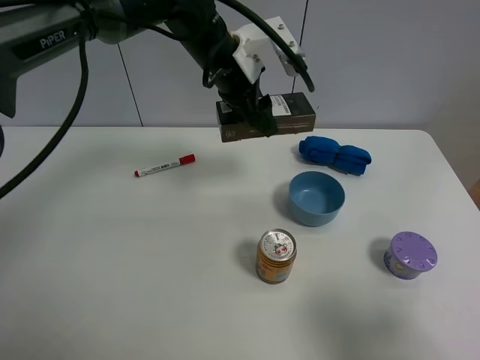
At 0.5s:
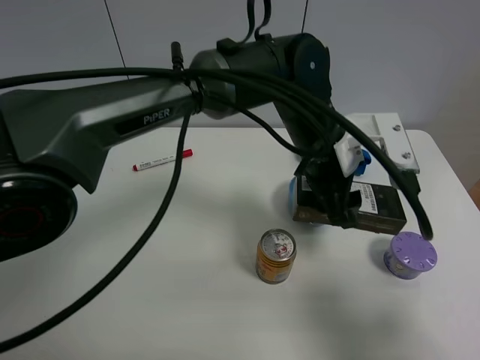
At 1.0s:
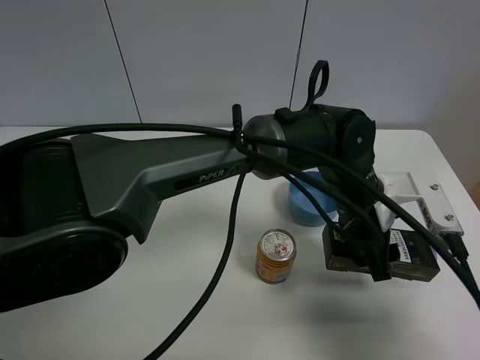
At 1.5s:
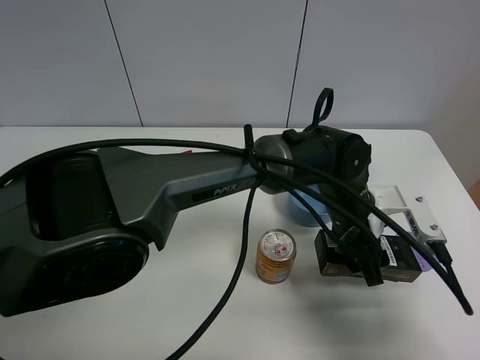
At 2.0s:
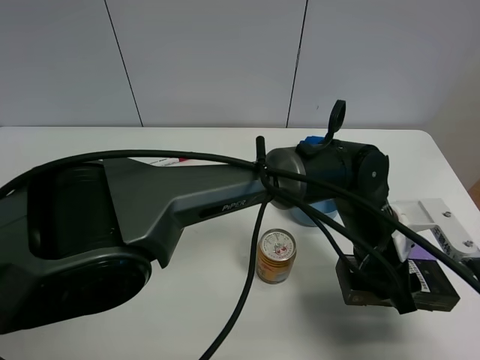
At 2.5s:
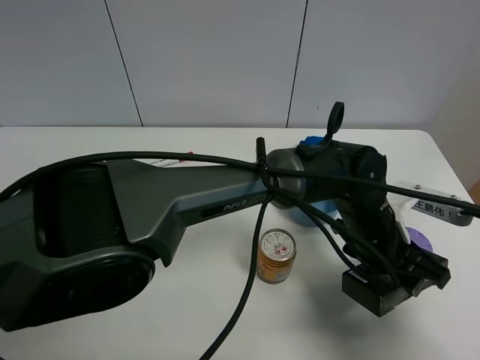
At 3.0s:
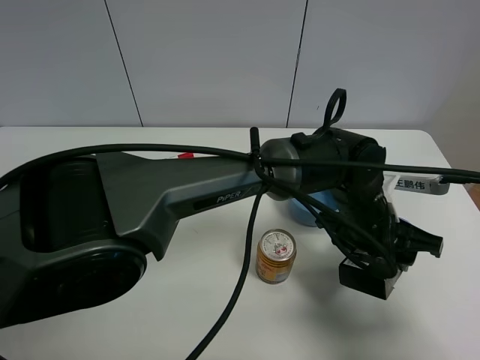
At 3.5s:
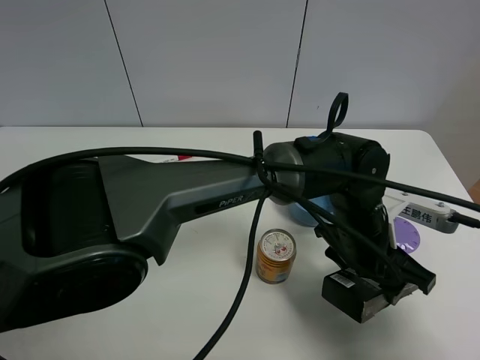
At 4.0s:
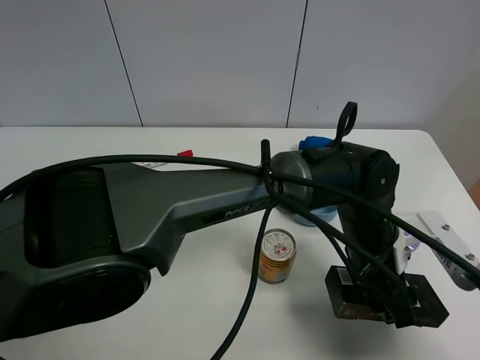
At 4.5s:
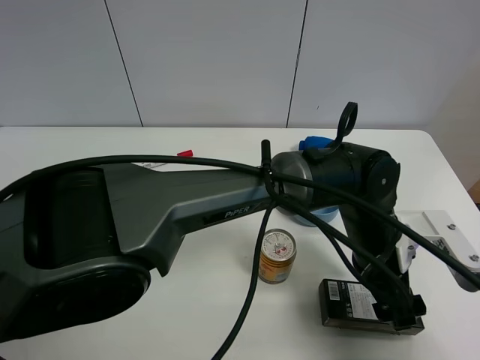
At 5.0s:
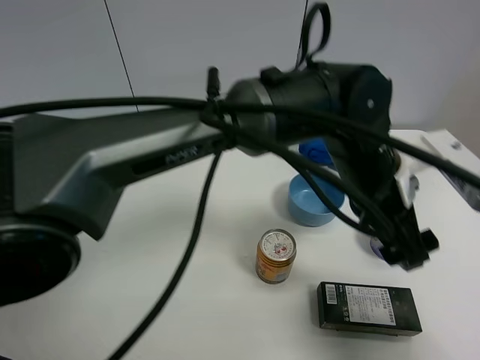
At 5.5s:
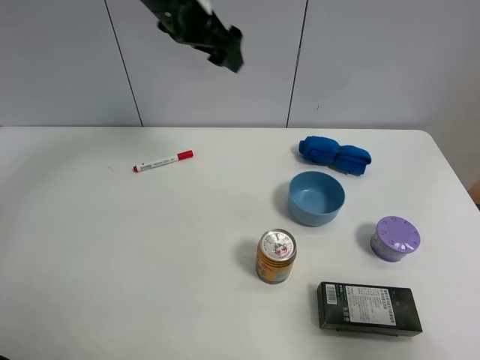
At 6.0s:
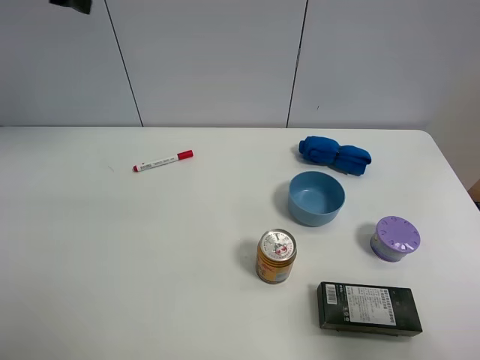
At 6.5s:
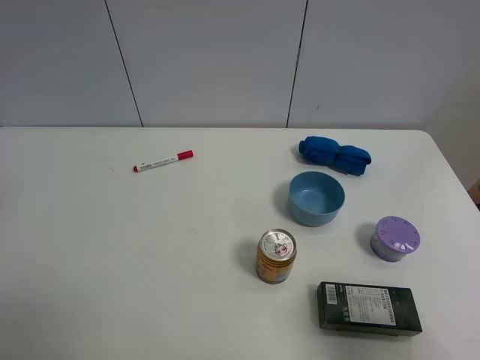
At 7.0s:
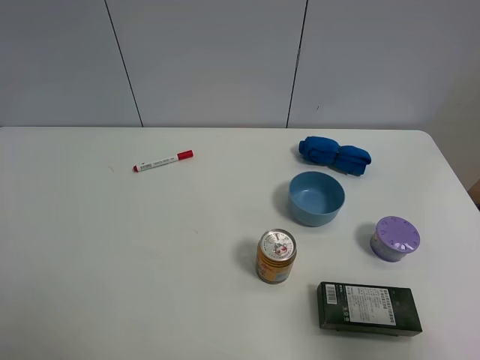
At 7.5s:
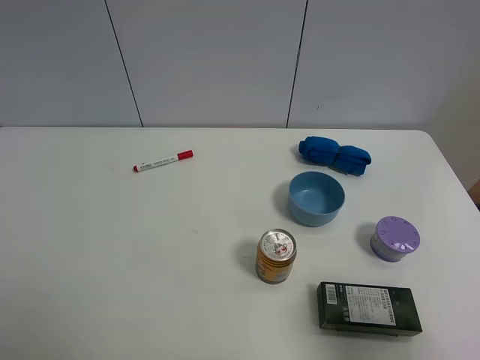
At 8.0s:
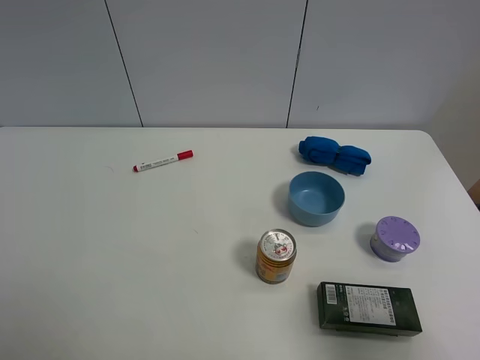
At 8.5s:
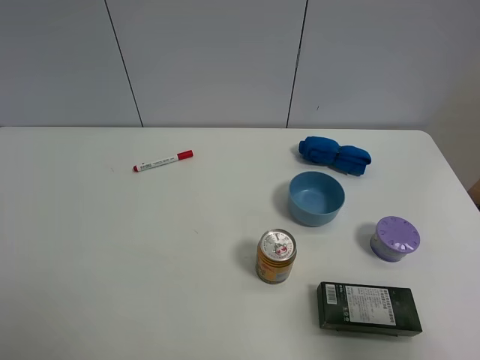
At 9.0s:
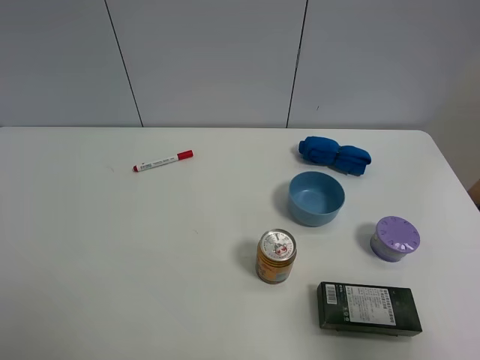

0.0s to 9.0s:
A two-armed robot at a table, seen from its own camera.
Task of the whole recording: the gripper move the object.
Step, 0.0s to 4.5s: Place the brown box on the table with the left gripper.
0.0s to 2.0s: The left gripper travels to the right, backward and downward by some 30 cm.
2.0s to 4.5s: The left gripper opens its fingers.
4.5s to 7.0s: The left gripper shifts about 50 cm to the left.

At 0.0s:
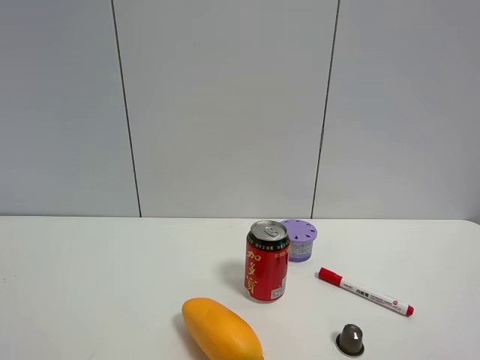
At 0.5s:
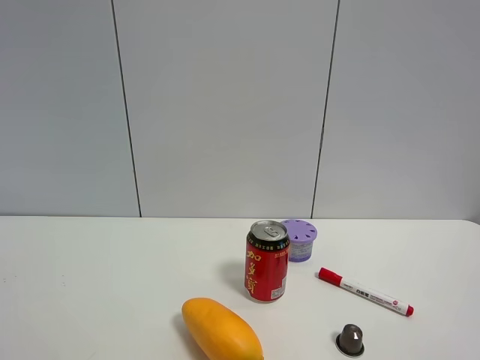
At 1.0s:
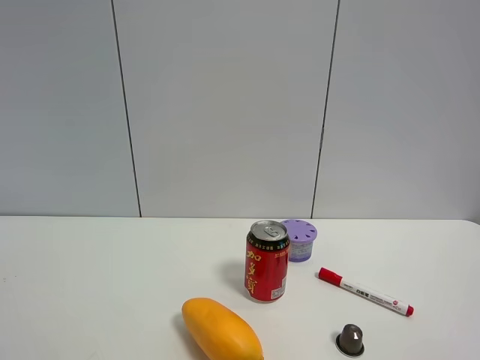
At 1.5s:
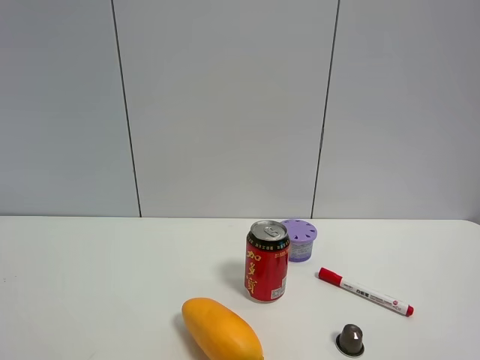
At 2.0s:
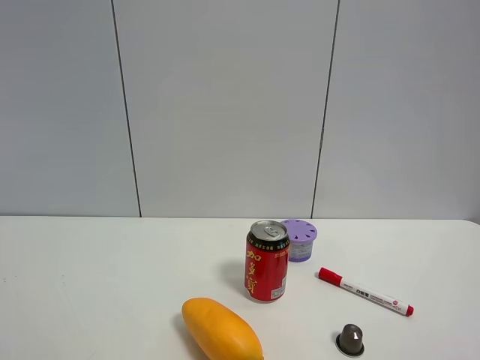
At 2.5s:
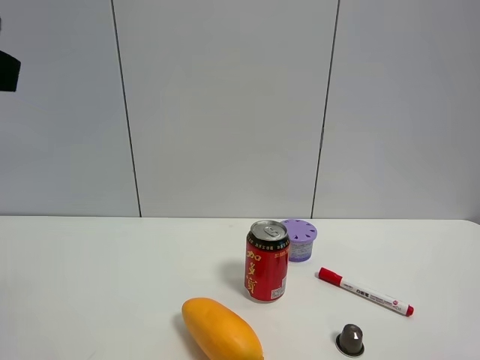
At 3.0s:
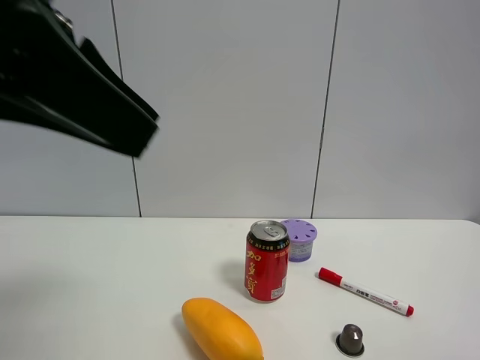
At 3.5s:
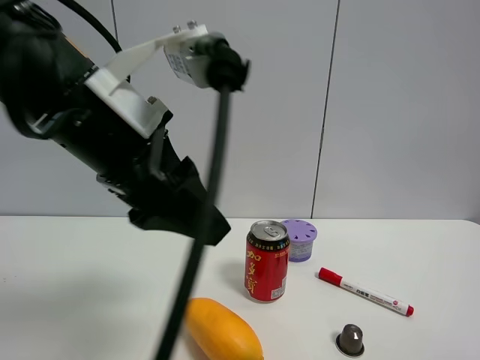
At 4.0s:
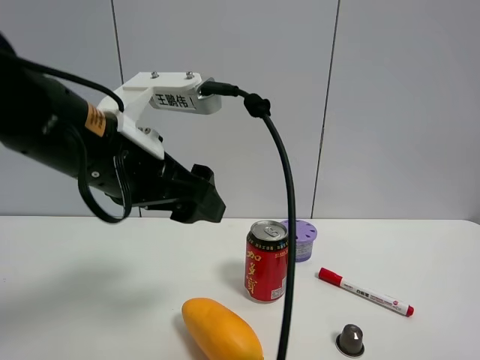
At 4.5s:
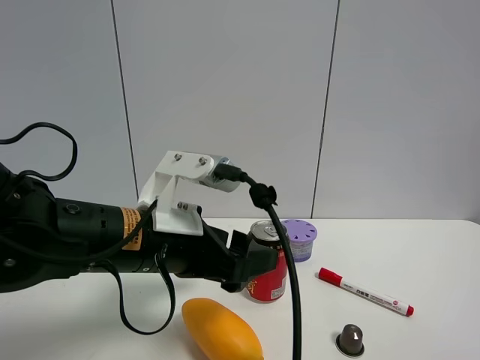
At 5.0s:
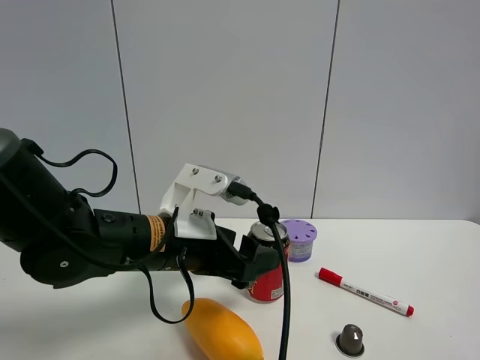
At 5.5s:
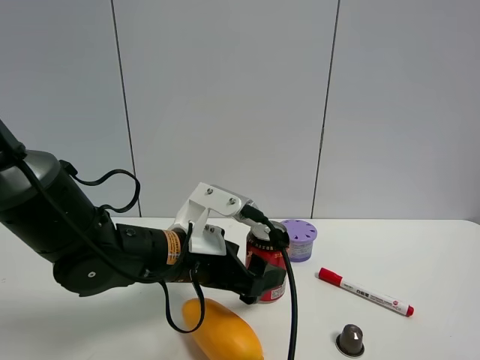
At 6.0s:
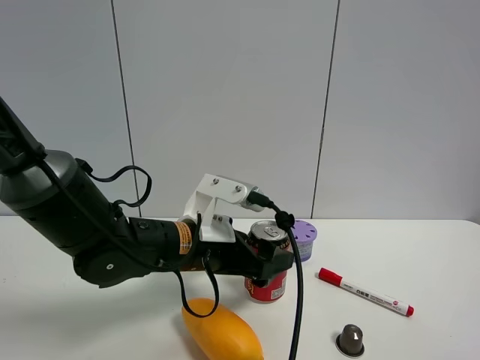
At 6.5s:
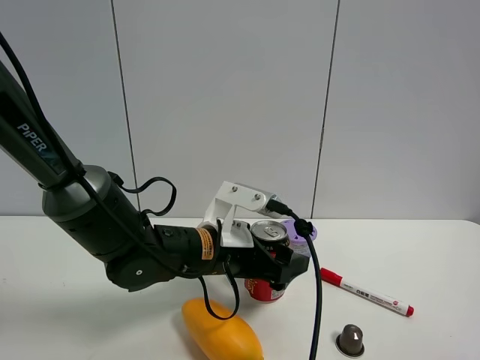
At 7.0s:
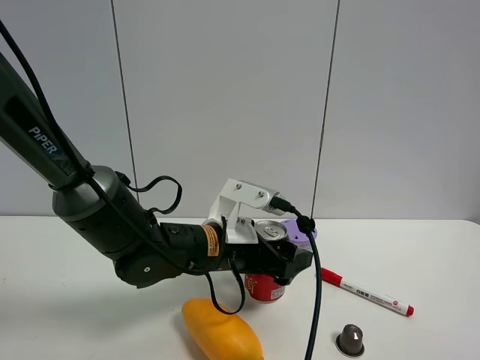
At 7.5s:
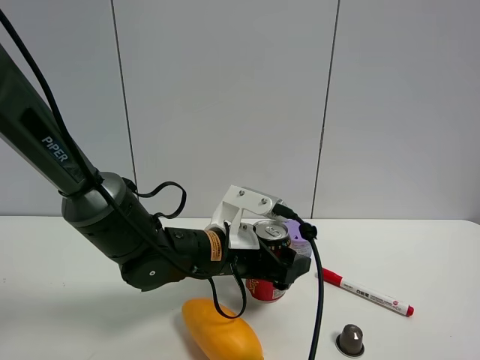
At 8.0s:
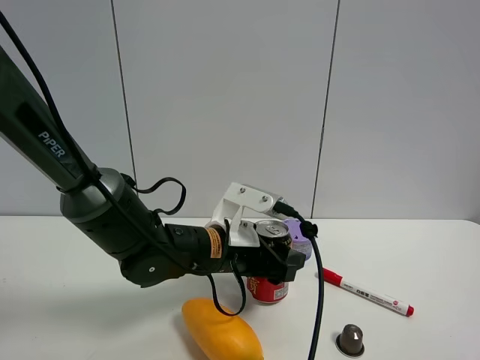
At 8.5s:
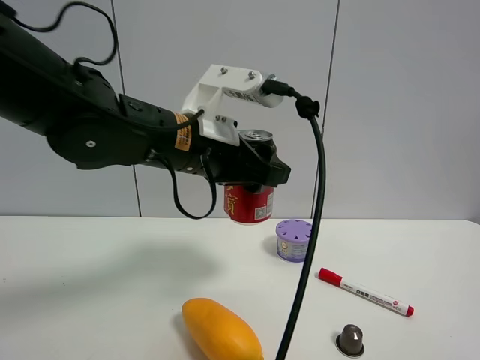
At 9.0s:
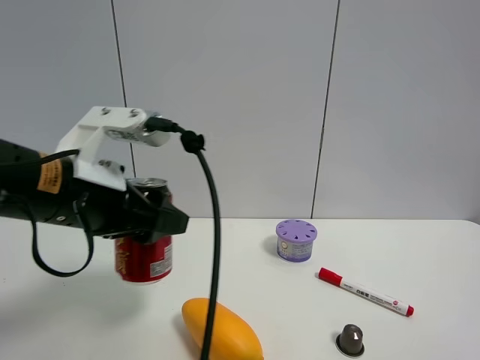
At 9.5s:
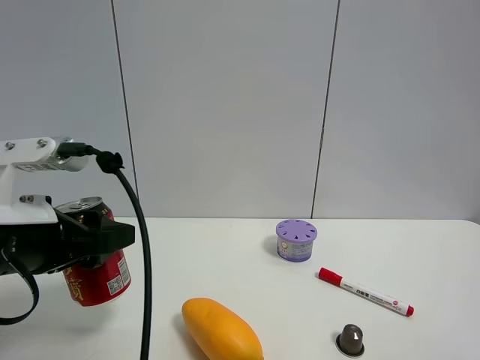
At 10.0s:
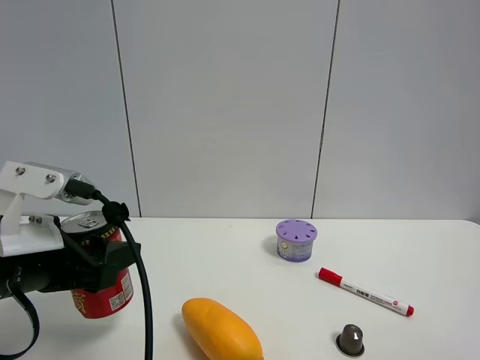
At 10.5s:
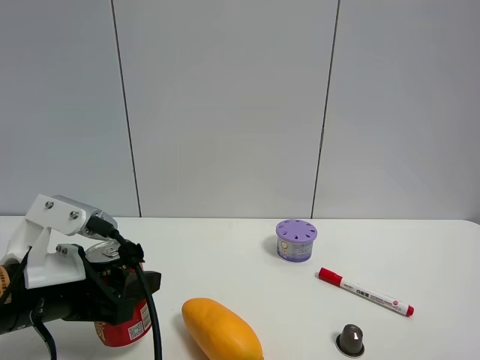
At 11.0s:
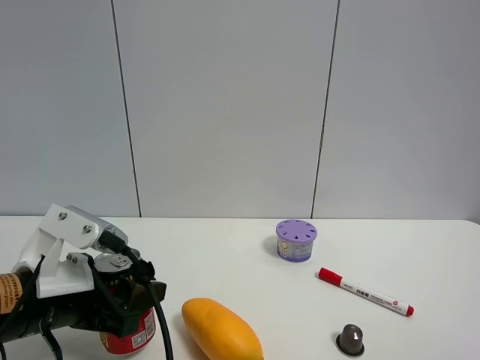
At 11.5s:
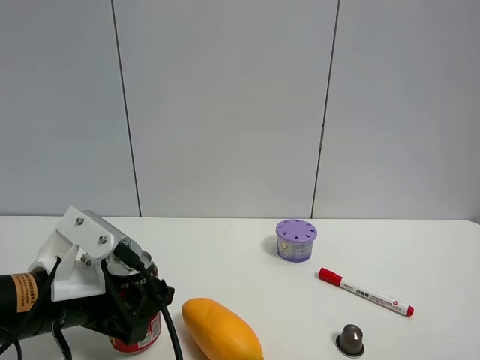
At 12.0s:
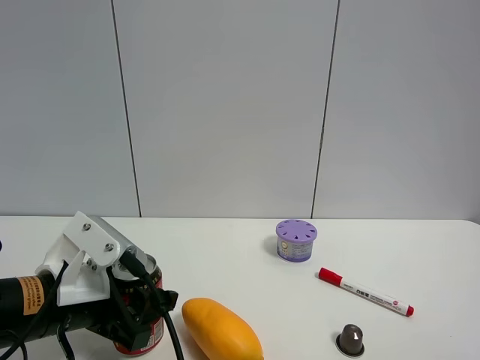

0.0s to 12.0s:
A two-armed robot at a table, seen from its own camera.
Task of the whole recording: the gripper move the object.
2.0s to 4.0s: The left gripper heads forward, to the right and downward, covering approximately 25 cm.
4.0s to 6.0s: The left gripper travels downward and forward by approximately 15 cm.
6.0s to 8.0s: The left gripper closes.
8.0s to 10.0s: The left gripper is displaced to the left and backward by roughly 20 cm.
10.0s to 12.0s: The left gripper heads downward, covering about 5 cm.

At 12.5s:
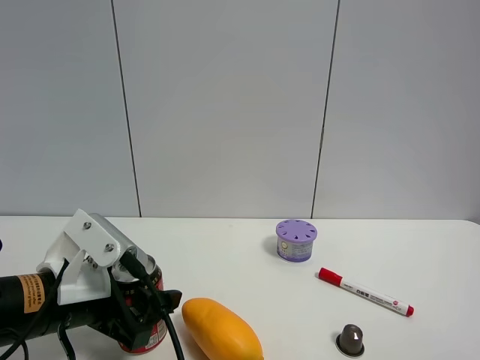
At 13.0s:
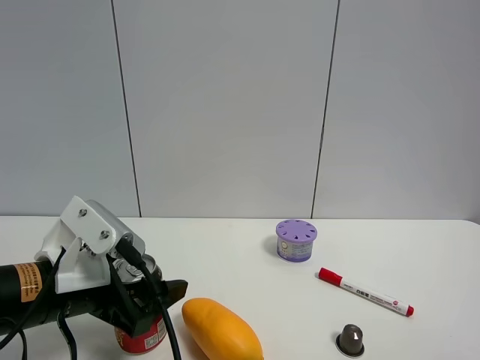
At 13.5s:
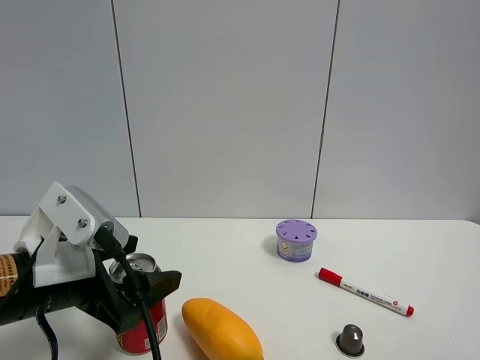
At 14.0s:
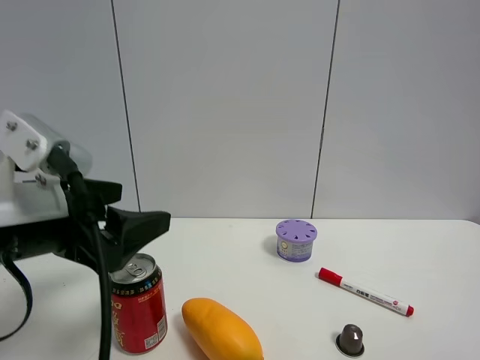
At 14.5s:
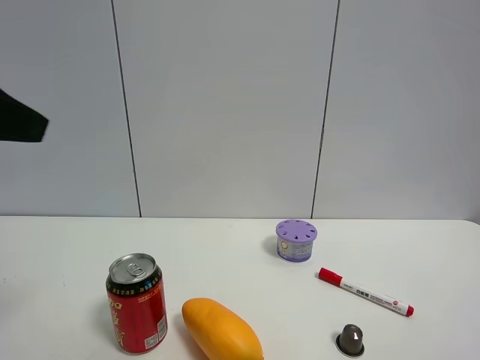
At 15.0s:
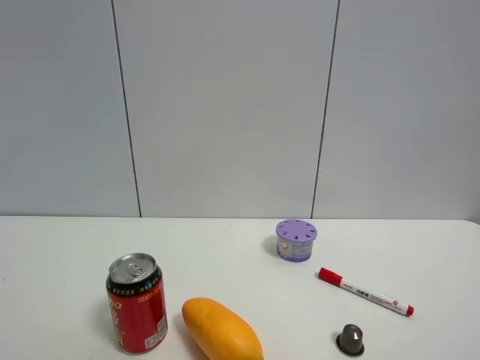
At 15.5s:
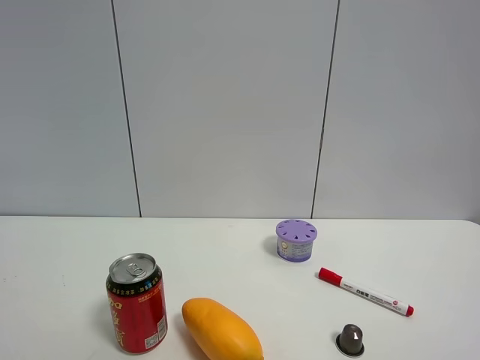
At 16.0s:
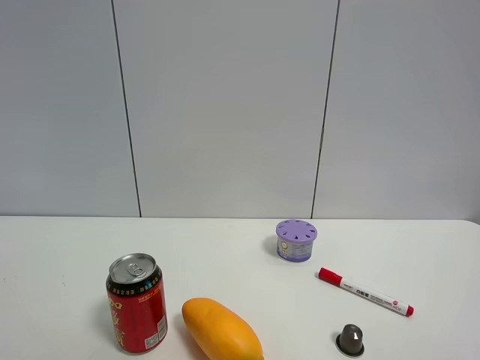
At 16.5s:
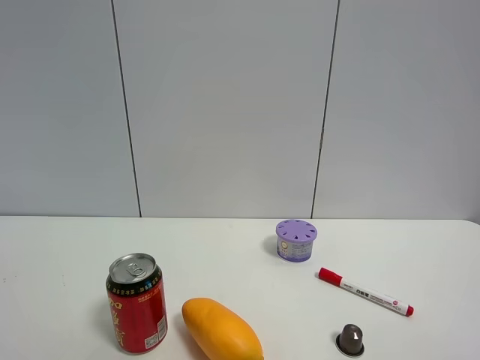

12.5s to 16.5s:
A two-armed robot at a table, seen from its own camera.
Task of the whole recording: the gripper move the object.
12.5s to 14.5s: The left gripper moves upward, some 25 cm, and opens its fingers.
14.5s to 16.5s: The left gripper heads backward and to the left, covering roughly 15 cm.

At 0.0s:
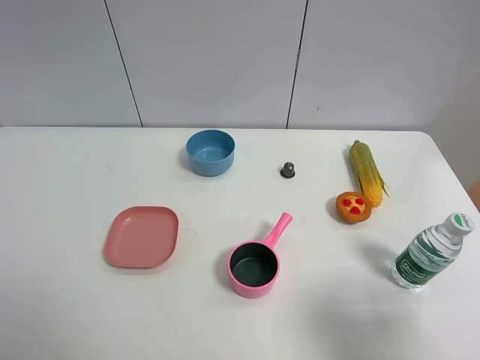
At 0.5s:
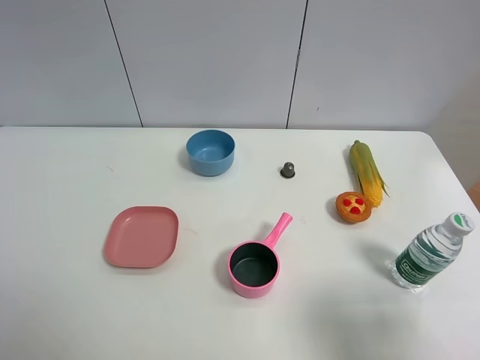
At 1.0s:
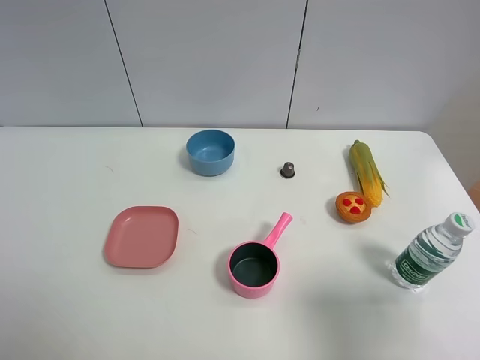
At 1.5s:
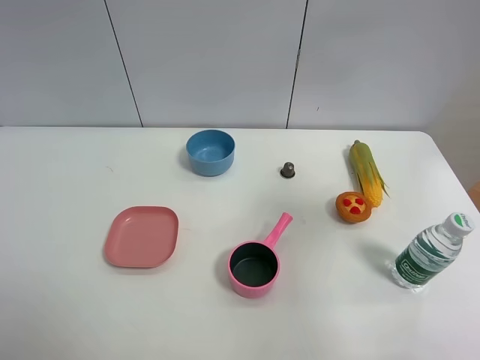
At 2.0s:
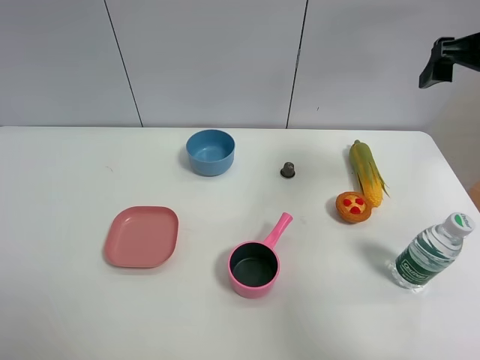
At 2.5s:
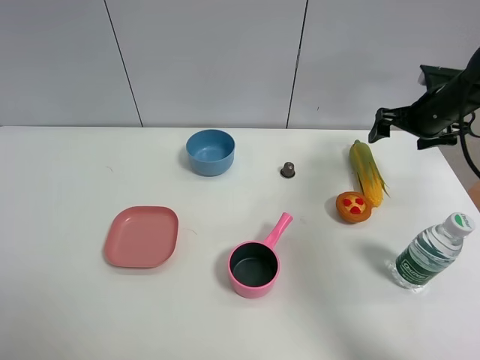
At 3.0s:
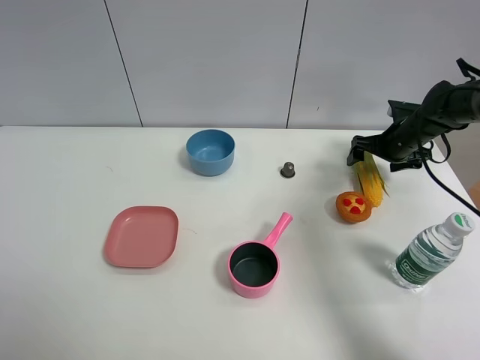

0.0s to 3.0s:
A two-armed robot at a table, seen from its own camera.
Task of the whole recording: the gripper move the object.
0.0s to 1.5s: The right gripper shifts approximately 20 cm forward and upward.
1.5s to 3.0s: The right gripper goes approximately 40 cm downward and forward.
